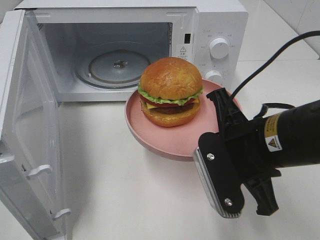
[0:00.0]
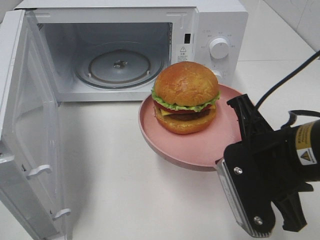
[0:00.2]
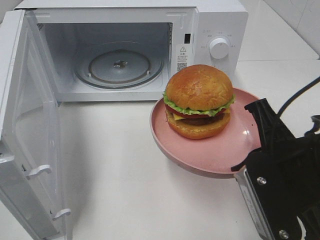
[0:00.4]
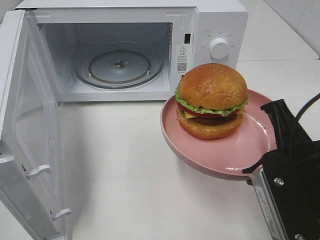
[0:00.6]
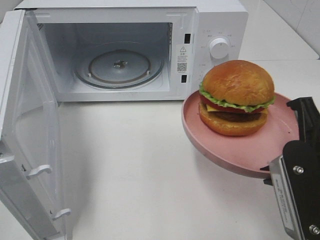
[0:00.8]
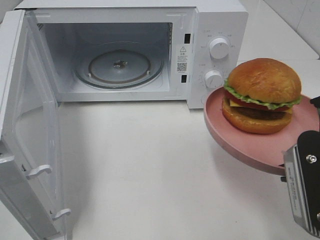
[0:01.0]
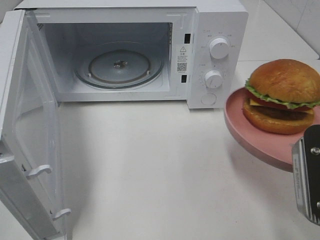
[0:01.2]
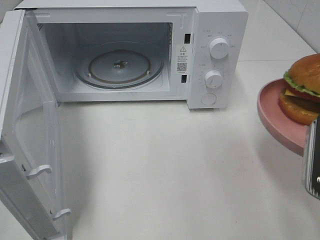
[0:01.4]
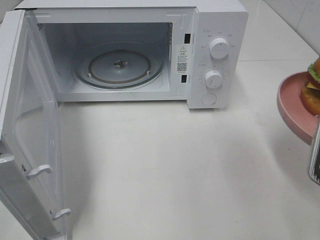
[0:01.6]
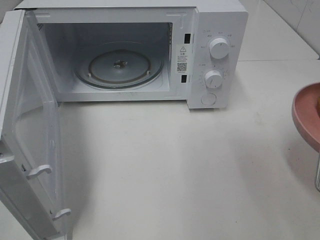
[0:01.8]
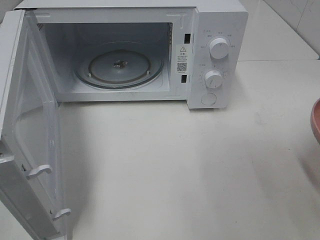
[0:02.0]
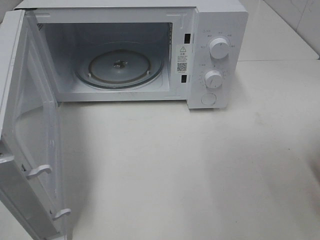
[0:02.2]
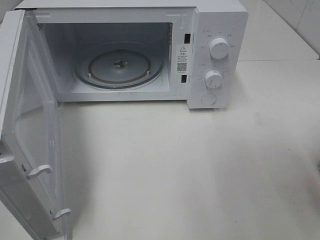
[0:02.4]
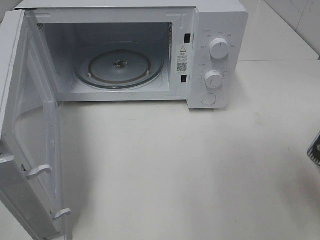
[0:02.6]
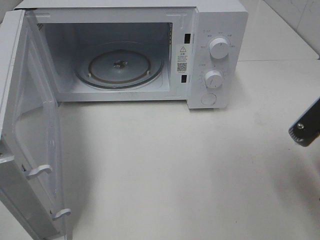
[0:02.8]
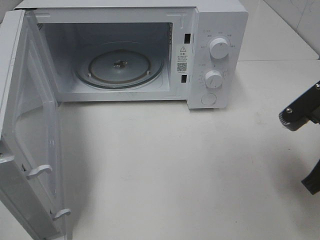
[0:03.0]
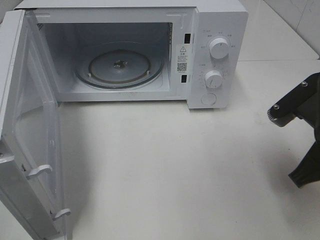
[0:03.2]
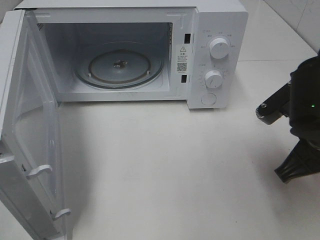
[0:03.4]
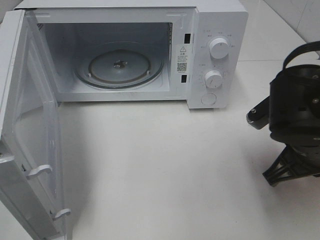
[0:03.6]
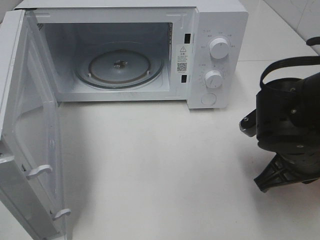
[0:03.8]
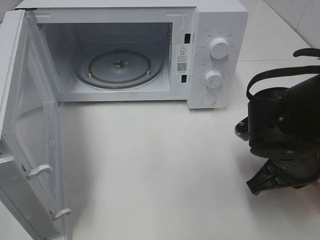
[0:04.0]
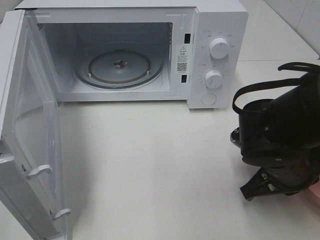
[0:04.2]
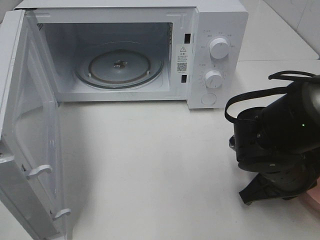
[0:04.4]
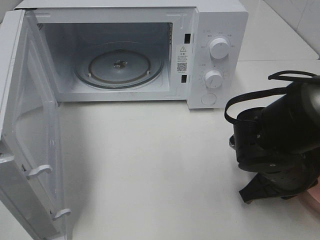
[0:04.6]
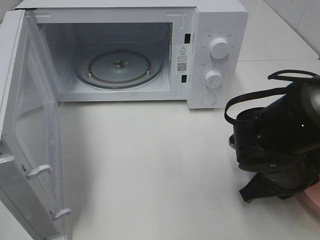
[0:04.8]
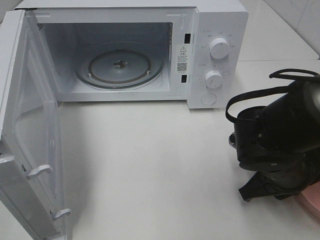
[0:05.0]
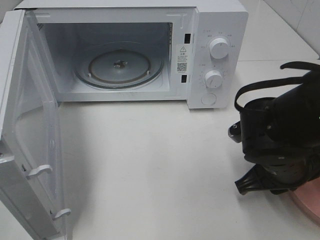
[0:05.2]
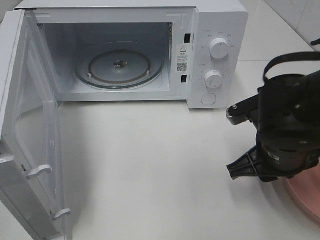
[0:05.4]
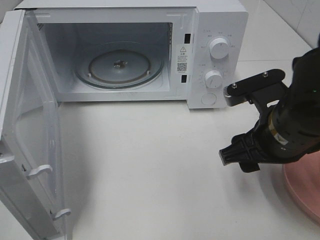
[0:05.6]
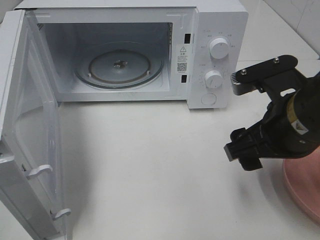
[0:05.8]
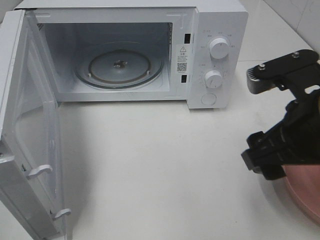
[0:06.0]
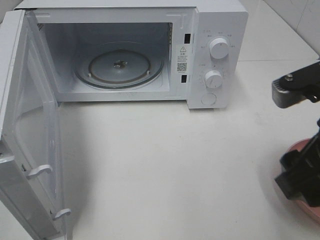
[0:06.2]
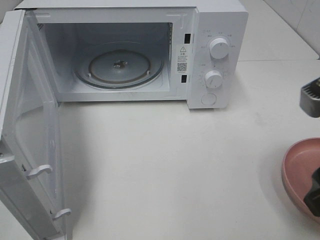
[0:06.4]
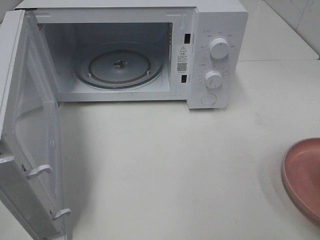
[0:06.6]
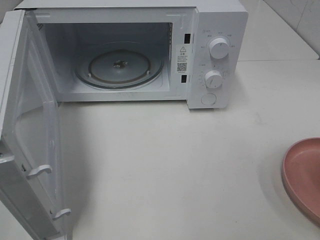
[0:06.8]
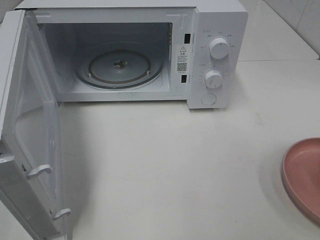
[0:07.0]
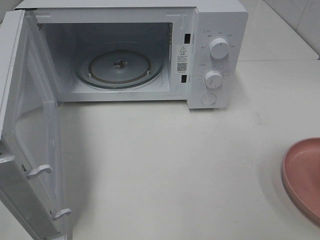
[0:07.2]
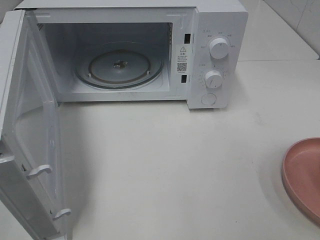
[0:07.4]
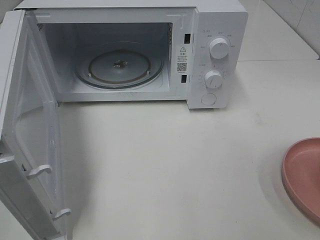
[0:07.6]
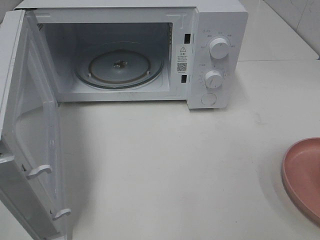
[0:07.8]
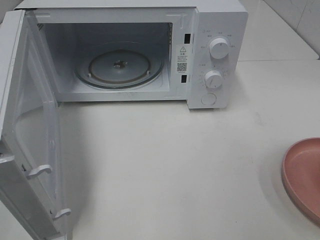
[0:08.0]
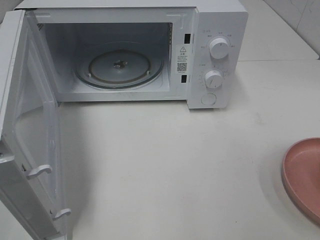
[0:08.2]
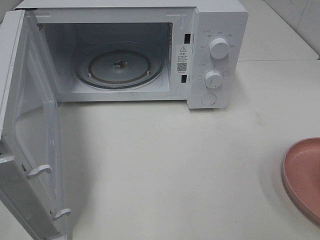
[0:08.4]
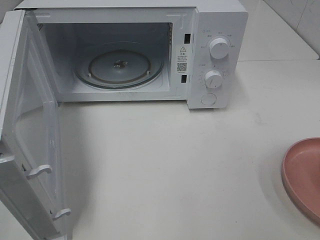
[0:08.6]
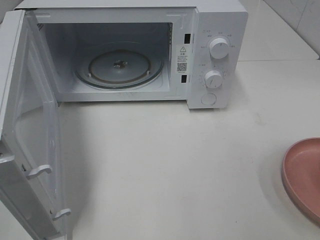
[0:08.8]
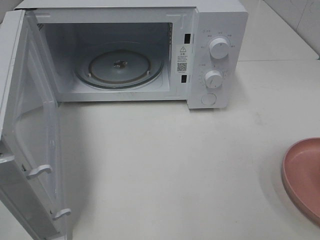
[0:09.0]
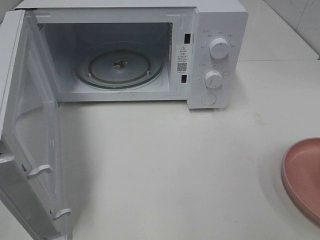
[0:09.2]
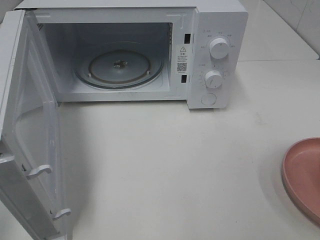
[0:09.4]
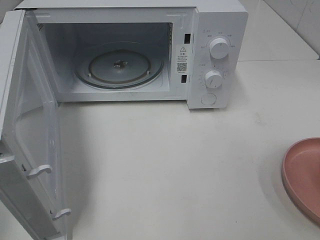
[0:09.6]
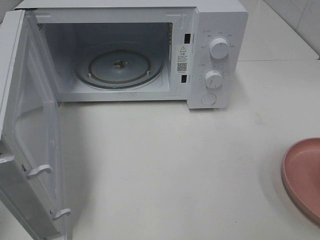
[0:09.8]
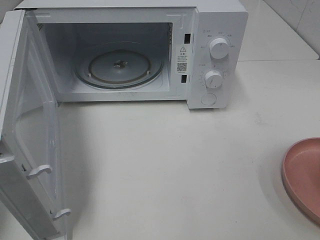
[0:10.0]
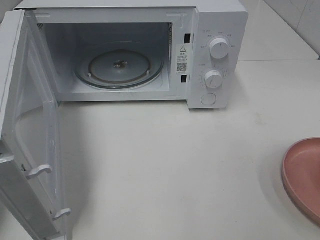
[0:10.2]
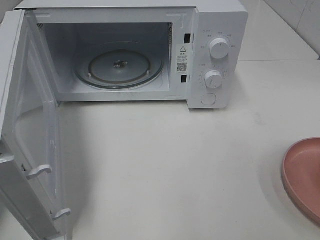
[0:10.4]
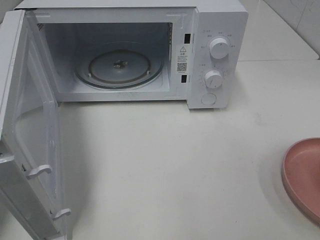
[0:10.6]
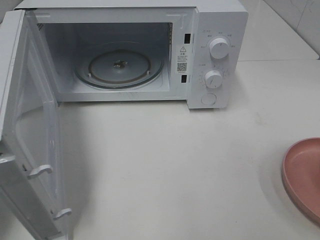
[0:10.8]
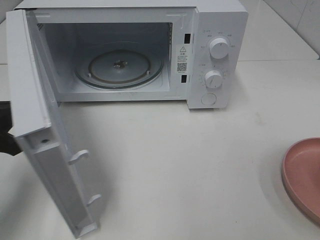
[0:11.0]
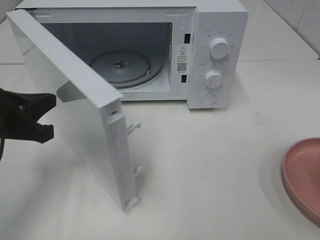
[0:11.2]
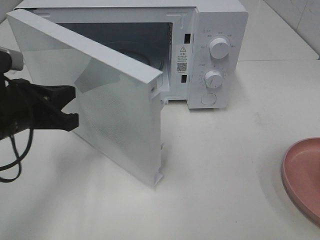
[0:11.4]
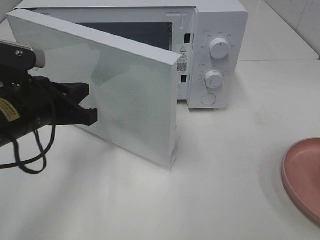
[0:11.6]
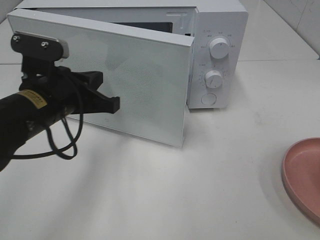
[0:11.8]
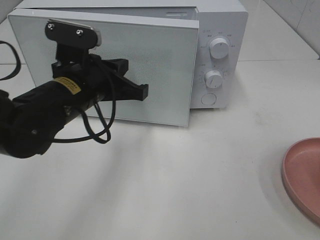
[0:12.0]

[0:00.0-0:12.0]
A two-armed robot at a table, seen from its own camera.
Task of the whole recording: Heat the burger.
Step, 0:00.0 to 0:05.2: Right hand: place the plate on the table.
0:00.0 to 0:01.6: The right gripper travels to the right and backward by about 10 cm.
0:01.6 to 0:03.0: The right gripper shifts by roughly 5 cm.
0:03.0 to 0:04.4: The right gripper heads downward, covering approximately 10 cm.
0:04.4 to 0:06.0: The right gripper goes about 15 cm upward, and opens its fingers.
0:06.0 to 0:07.6: The right gripper travels backward and to the right by about 20 cm.
0:07.6 to 0:09.0: Both grippers stay about where they are.
0:10.4 to 0:12.0: The left gripper is displaced to the right and forward by about 25 cm.

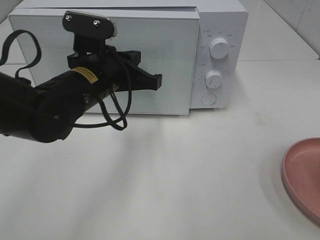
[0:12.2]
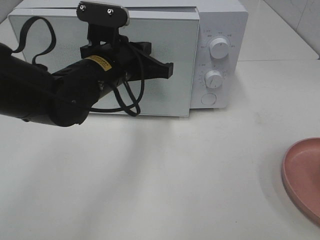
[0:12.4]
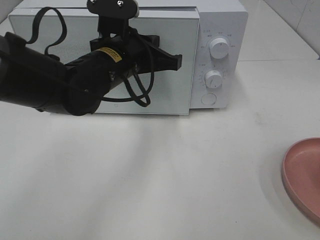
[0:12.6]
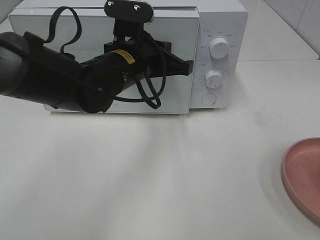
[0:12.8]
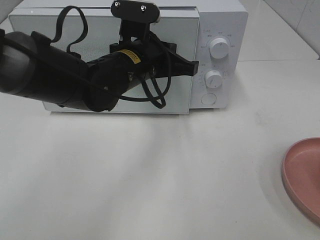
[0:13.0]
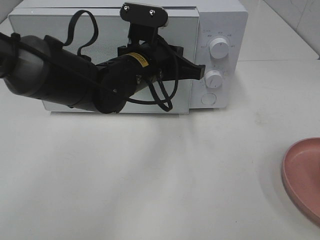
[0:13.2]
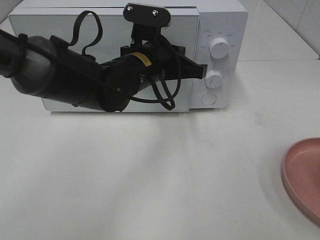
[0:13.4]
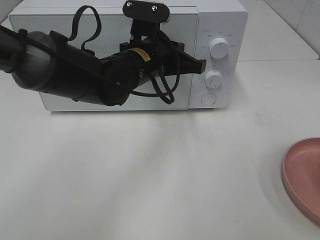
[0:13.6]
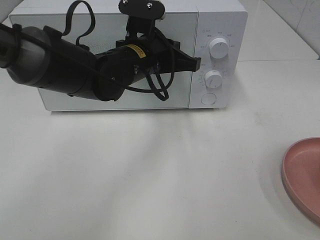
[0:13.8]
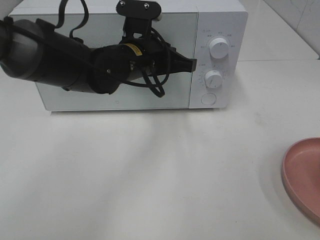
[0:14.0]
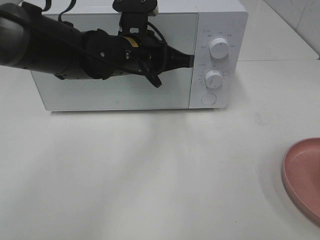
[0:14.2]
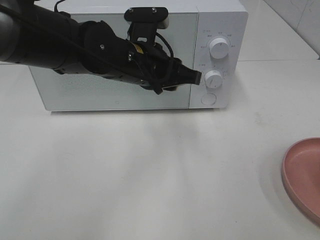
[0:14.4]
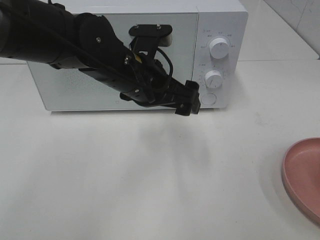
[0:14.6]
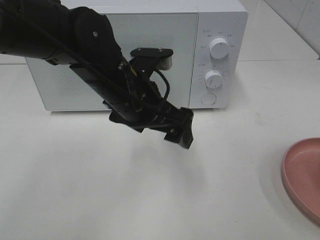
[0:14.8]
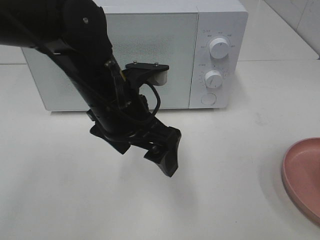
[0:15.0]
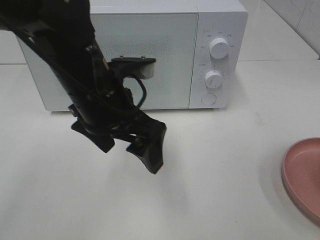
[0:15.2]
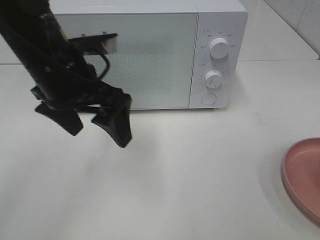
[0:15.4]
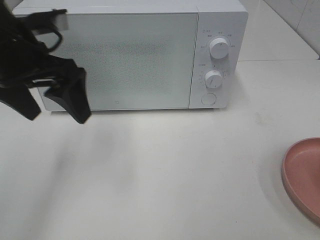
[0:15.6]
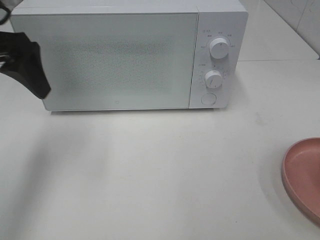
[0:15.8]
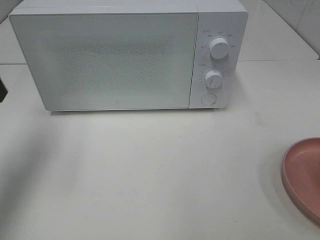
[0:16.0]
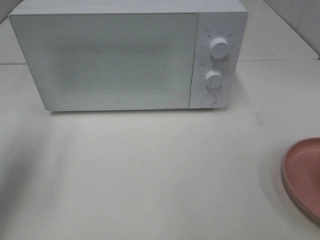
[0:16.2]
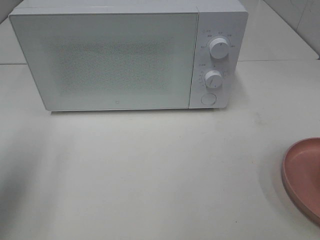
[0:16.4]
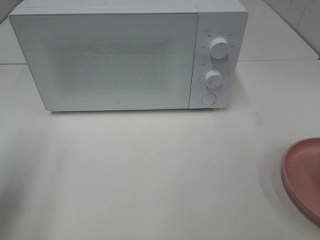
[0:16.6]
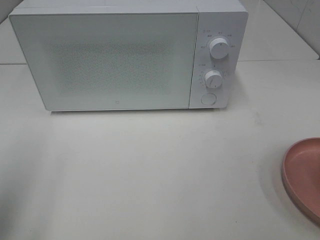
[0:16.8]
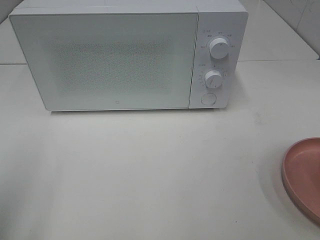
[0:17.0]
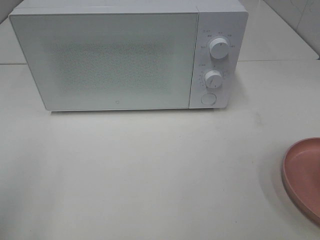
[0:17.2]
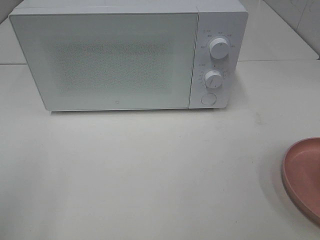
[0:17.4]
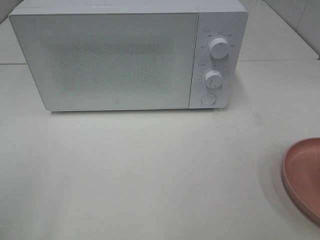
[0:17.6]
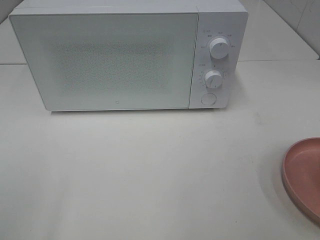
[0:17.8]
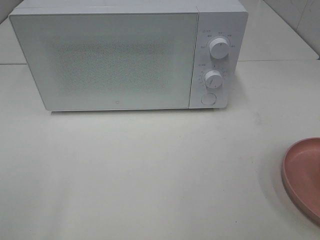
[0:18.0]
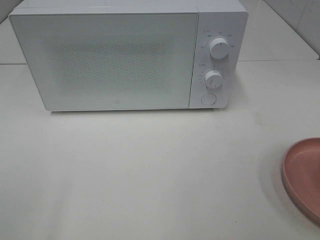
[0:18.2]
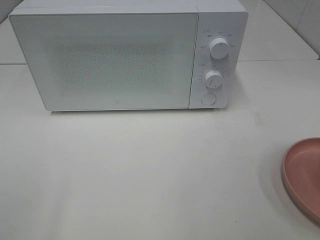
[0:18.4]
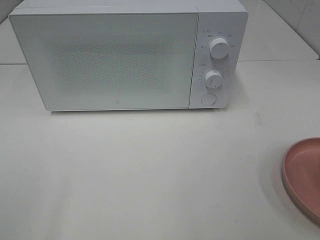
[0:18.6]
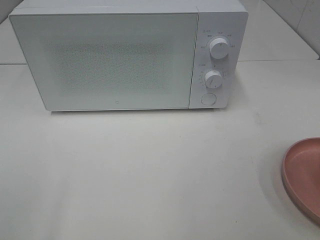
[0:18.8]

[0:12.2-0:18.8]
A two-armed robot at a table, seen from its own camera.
Task of the whole recording: Heat the burger.
Step, 0:12.2 to 0:14.2: Left hand: close the microwave door.
0:12.2 to 0:13.8: The left gripper shifts approximately 10 cm forward and to the right.
0:13.8 to 0:15.4: The left gripper moves to the left, backward and upward, some 15 cm, and opens.
0:15.4 to 0:17.2: The left gripper heads backward and to the left, covering approximately 25 cm.

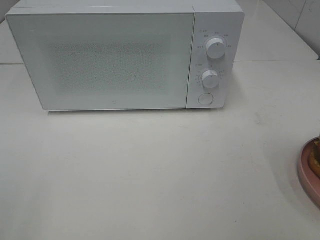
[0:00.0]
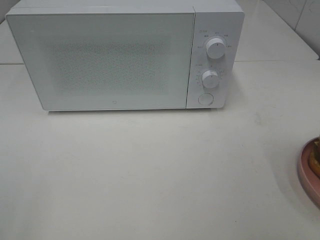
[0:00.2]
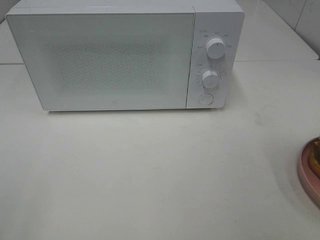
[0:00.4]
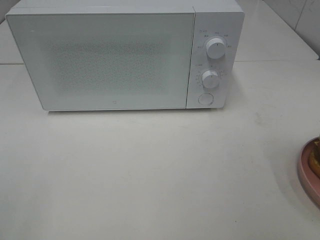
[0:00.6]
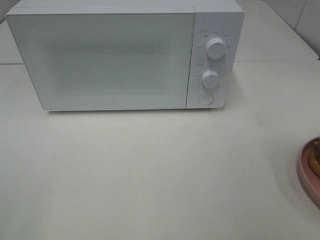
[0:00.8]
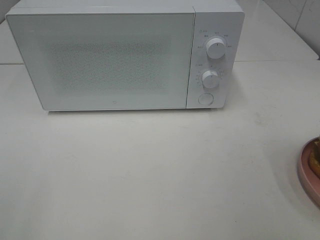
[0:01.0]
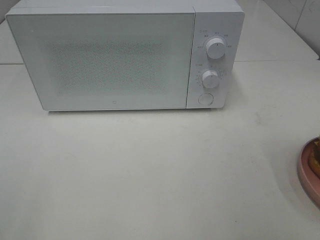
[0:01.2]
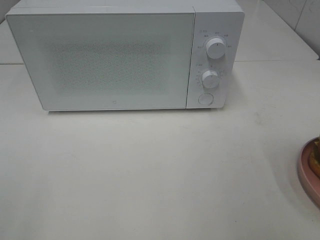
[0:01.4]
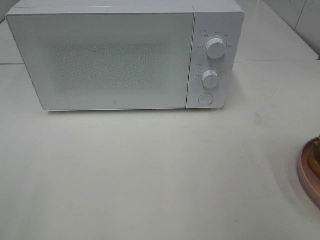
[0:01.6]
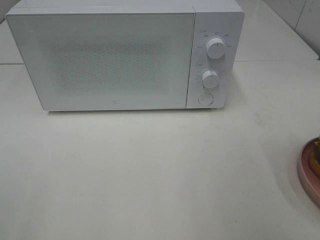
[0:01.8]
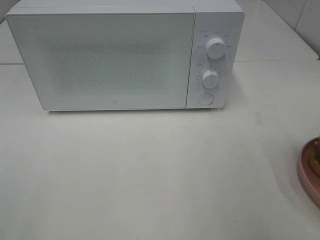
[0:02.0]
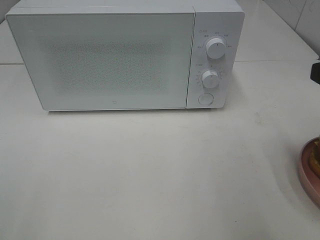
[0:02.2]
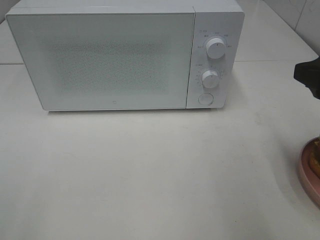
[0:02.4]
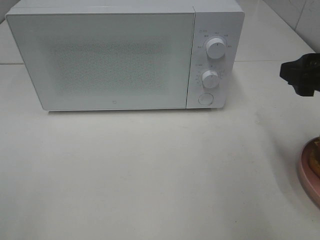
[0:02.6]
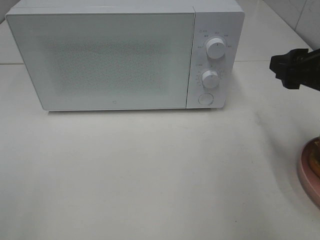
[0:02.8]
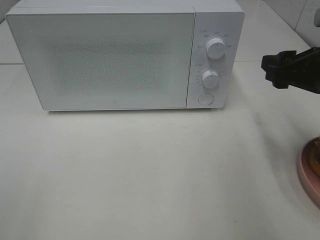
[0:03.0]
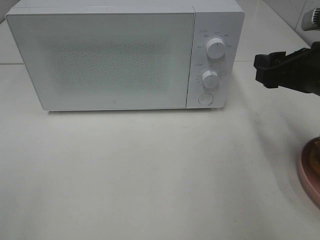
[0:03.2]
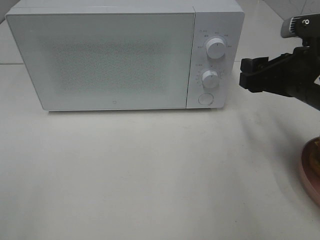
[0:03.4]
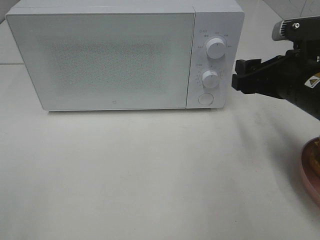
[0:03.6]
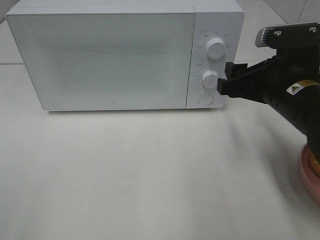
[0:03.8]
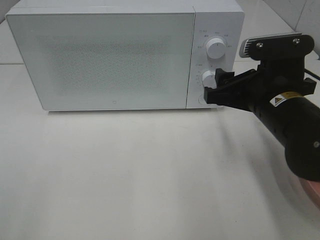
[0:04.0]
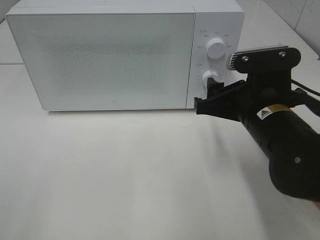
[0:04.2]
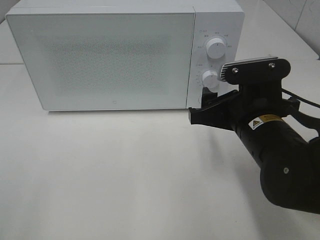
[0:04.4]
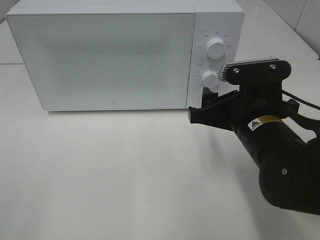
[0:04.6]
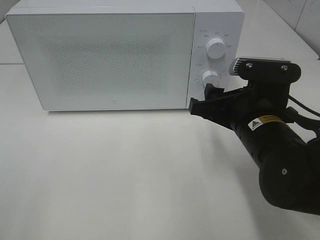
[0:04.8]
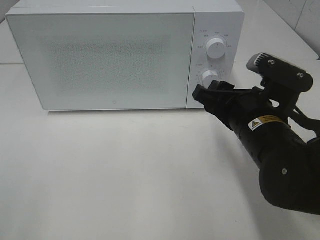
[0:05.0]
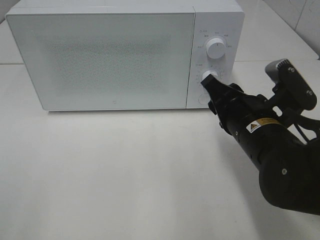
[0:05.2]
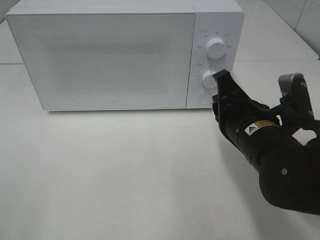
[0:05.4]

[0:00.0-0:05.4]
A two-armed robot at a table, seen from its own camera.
Task of the whole recording: Heat the burger.
0:01.4 to 0:02.8: The right gripper shifts about 15 cm forward.
0:02.8 to 0:04.0: The right gripper goes about 10 cm to the left and downward.
0:04.0 to 0:05.4: The right gripper closes its fingers.
